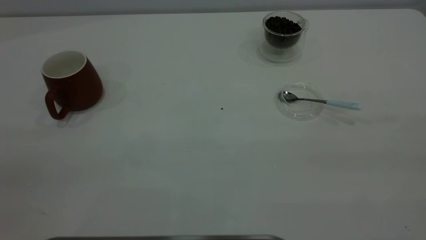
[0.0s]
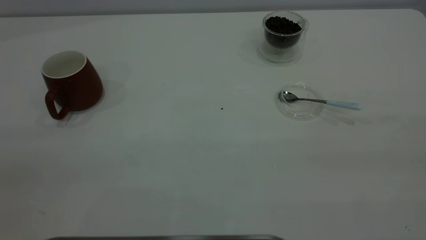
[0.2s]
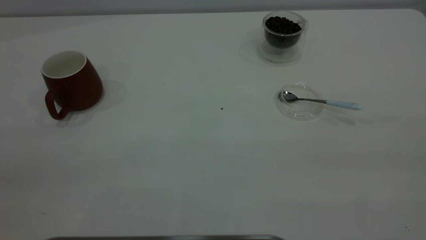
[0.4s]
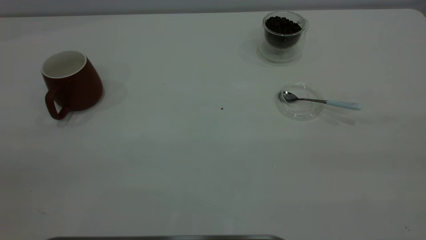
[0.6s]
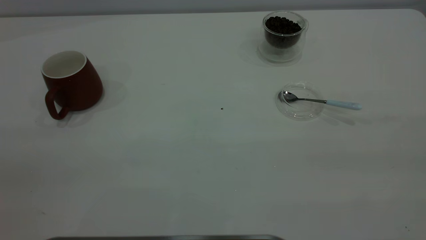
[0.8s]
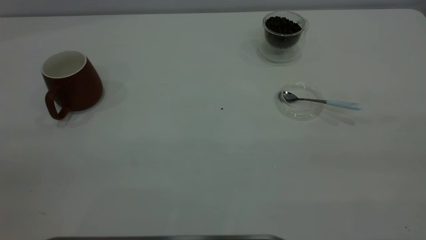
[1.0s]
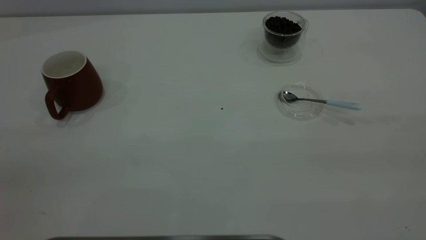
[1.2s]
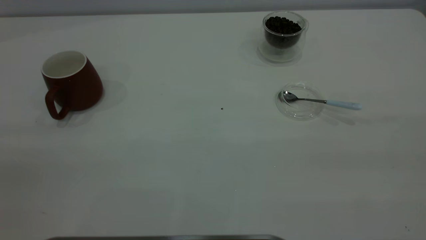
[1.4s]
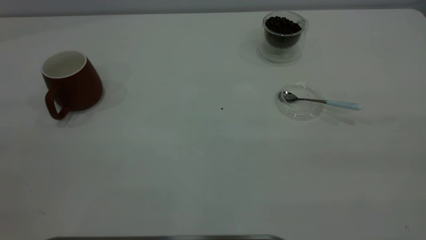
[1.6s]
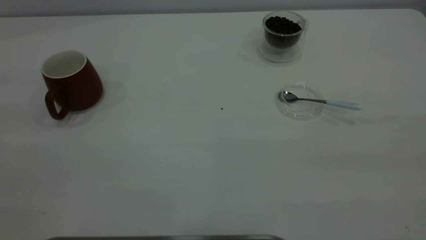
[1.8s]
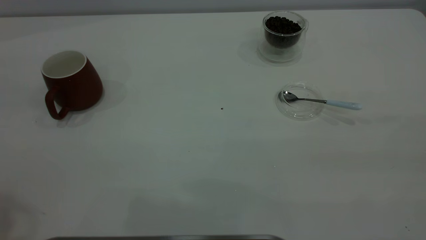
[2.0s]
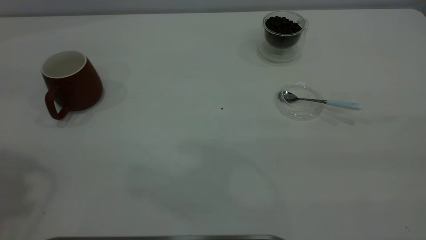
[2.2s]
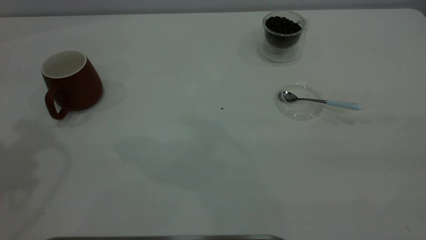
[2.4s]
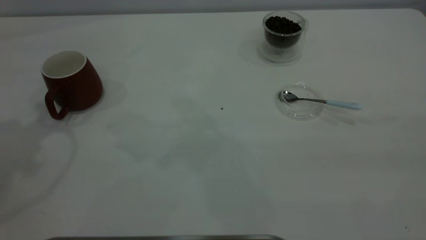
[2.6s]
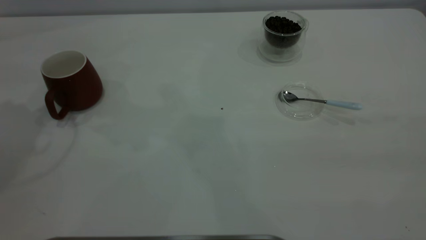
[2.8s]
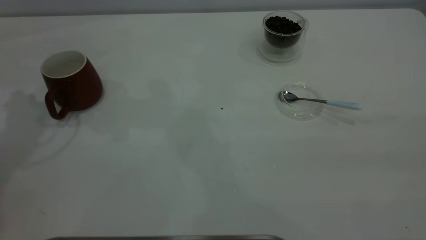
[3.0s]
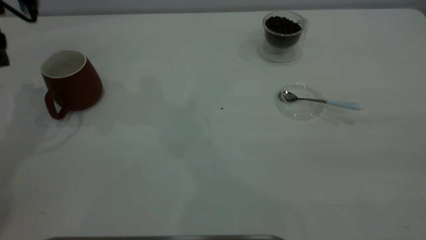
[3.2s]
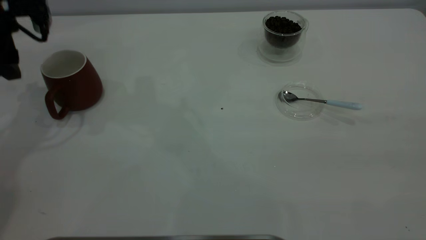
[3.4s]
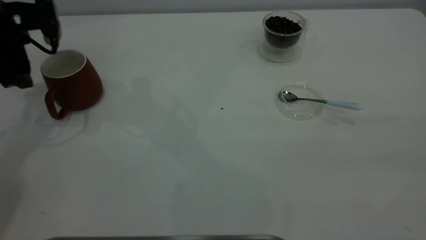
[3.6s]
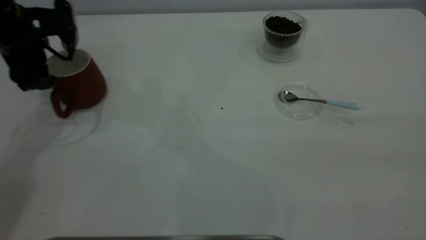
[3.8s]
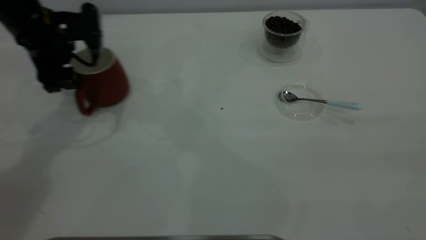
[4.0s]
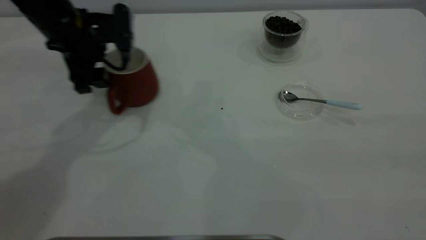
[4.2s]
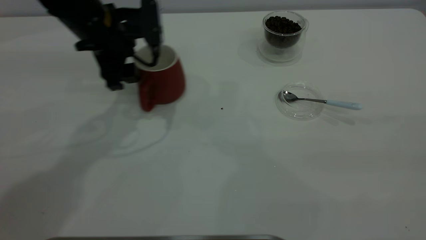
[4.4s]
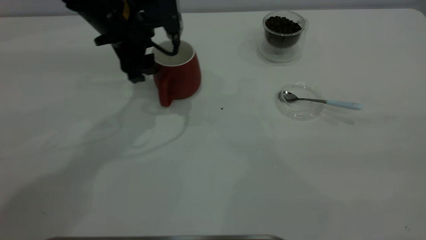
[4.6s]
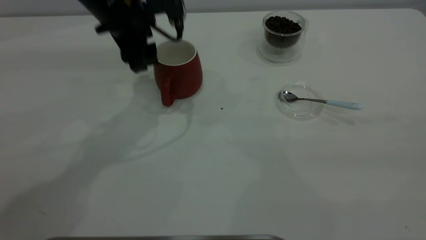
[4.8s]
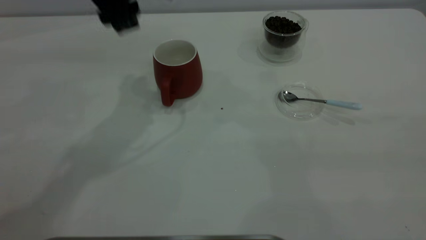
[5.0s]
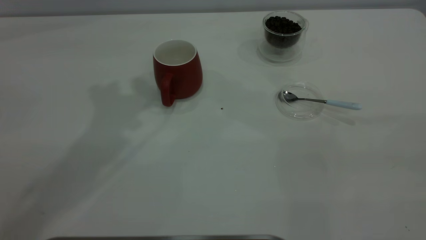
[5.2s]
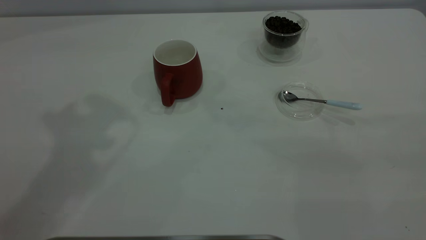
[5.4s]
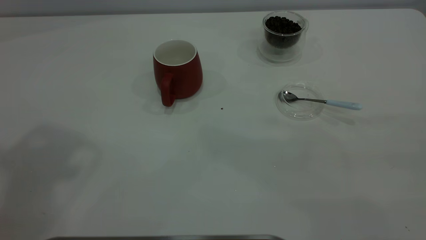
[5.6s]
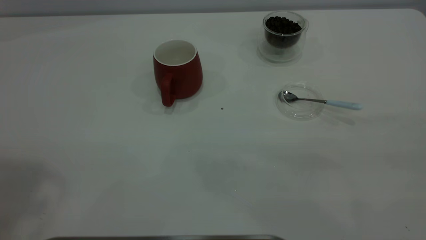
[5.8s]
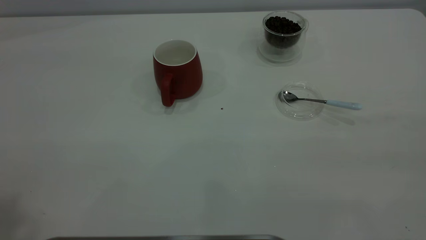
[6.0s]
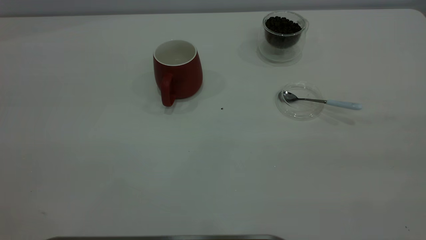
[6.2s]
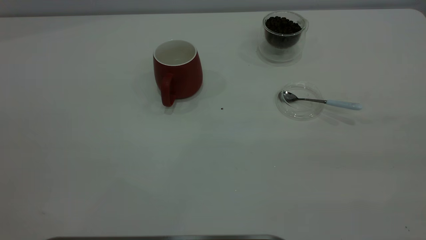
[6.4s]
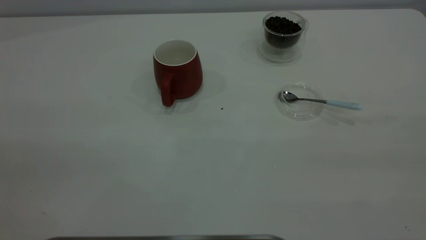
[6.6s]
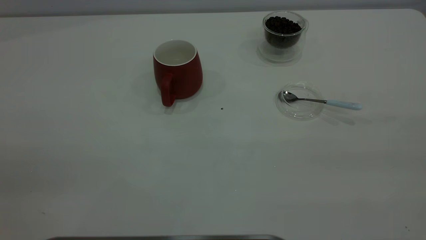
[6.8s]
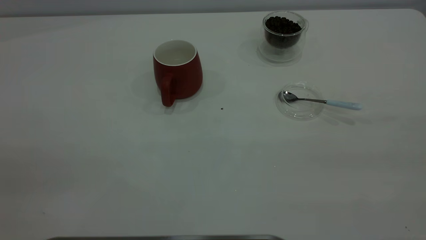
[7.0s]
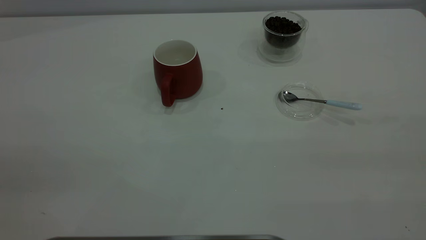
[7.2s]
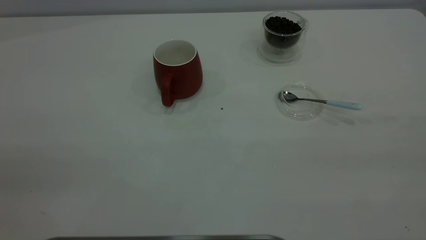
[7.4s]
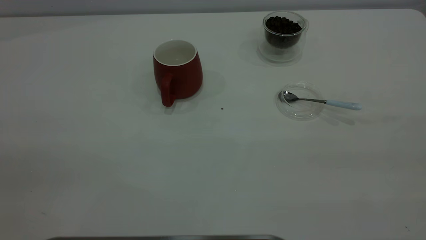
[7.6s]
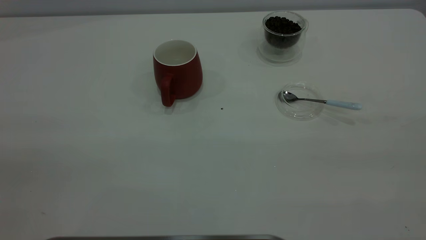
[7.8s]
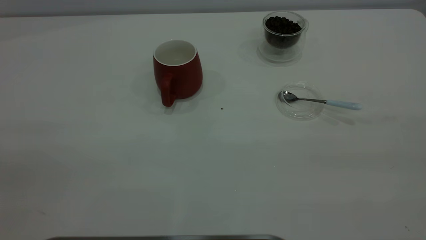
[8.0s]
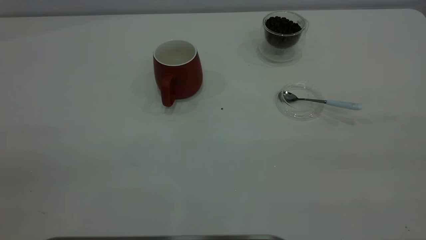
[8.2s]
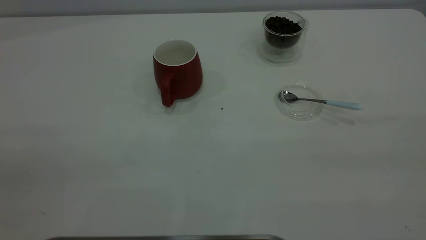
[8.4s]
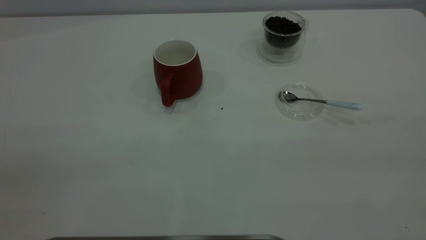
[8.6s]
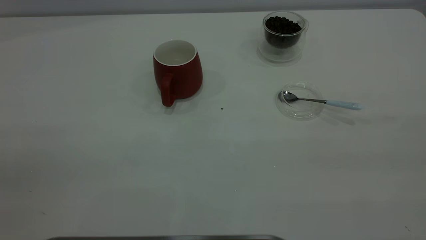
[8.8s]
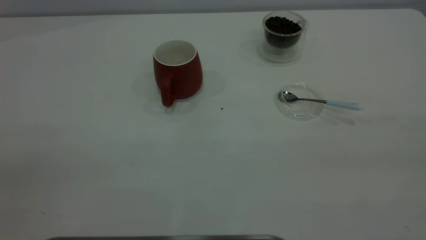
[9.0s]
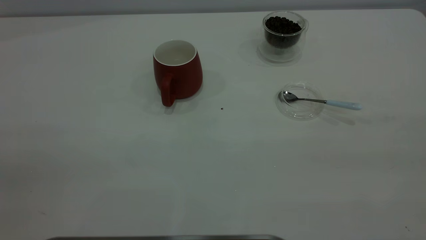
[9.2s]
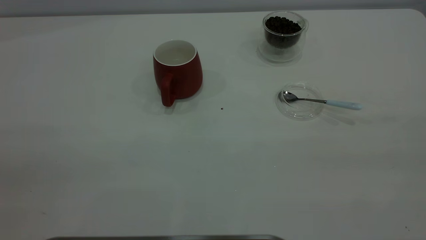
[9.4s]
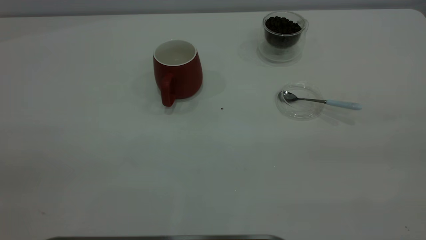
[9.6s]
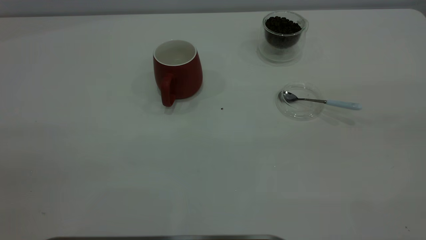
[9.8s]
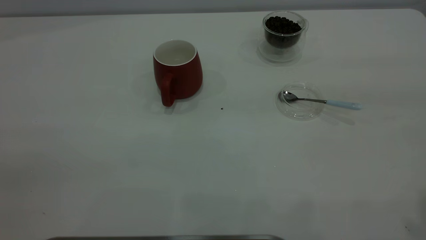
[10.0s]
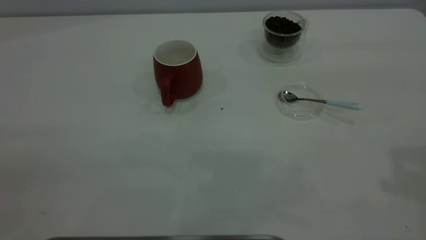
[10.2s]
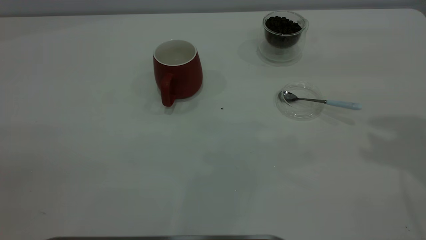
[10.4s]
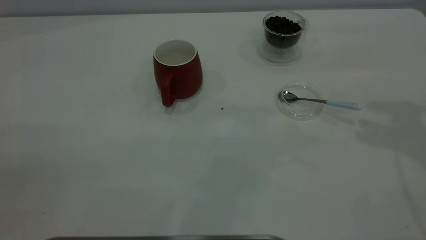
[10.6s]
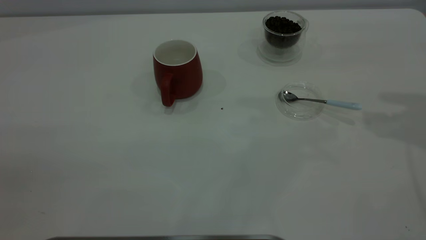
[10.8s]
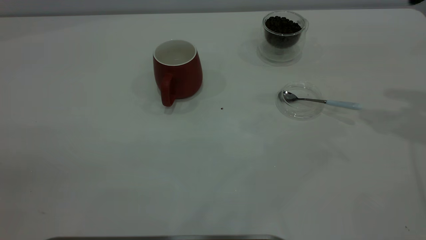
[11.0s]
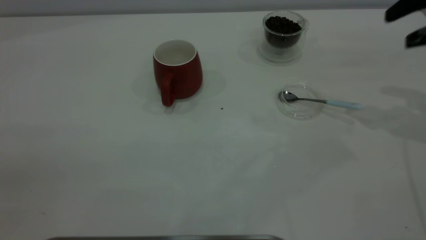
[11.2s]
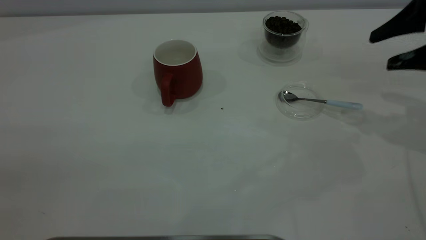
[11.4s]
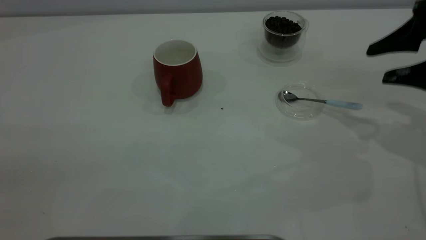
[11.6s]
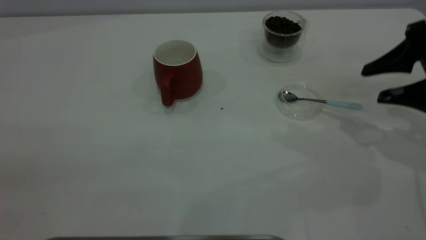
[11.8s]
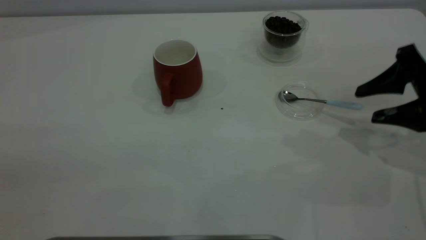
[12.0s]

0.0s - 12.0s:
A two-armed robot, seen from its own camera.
Task of the whole recording: the left gripper place the red cup in the center of the table, the right gripper take the blue spoon from the cup lid and scoop out the coffee beans from the coffee cup and put them into the red cup, the right gripper put the spoon back into the cup lid.
Step, 0.0s - 4.8s: Move the cup to the center of view.
3.0s - 4.4s: The left gripper shifts some 20 cm to the right and downward.
4.4s - 6.0s: The left gripper moves upward and backward, some 50 cm.
10.4s - 12.0s: The right gripper is displaced downward by roughly 25 cm.

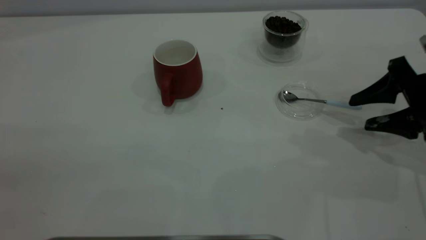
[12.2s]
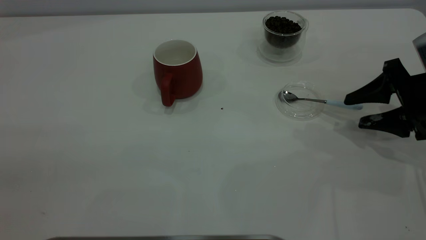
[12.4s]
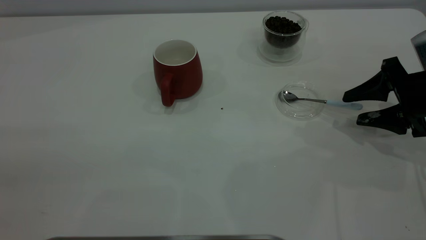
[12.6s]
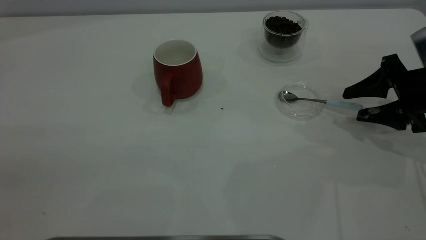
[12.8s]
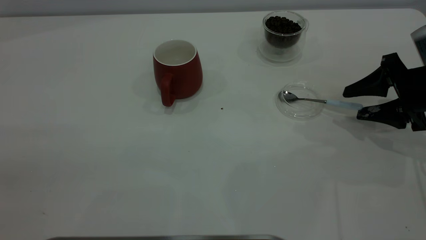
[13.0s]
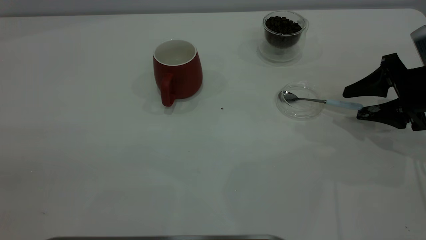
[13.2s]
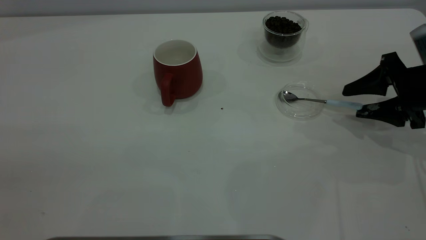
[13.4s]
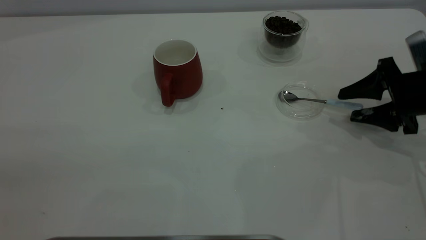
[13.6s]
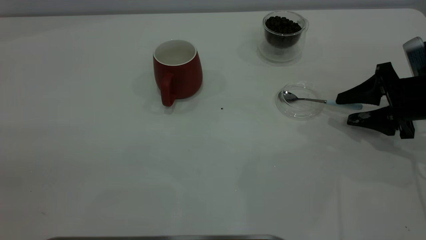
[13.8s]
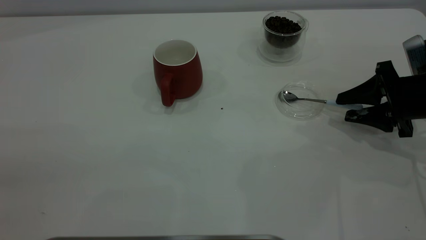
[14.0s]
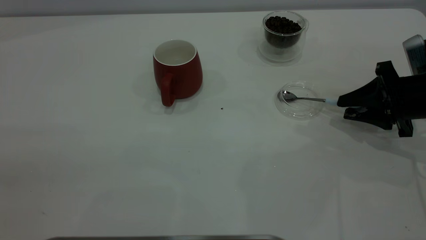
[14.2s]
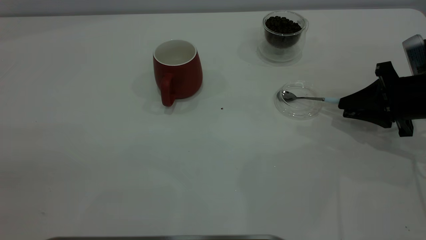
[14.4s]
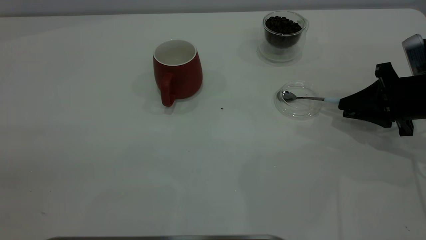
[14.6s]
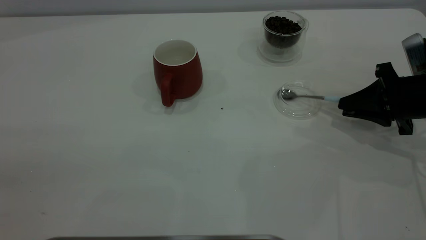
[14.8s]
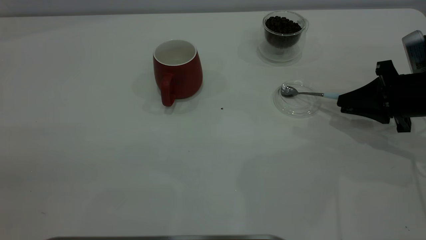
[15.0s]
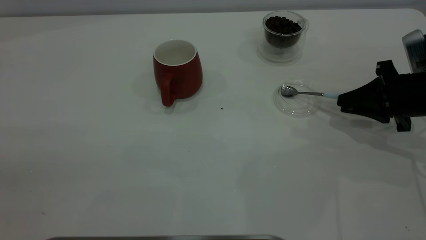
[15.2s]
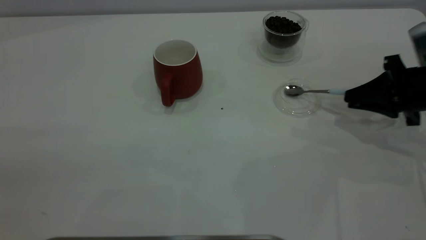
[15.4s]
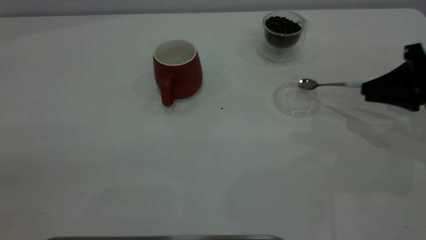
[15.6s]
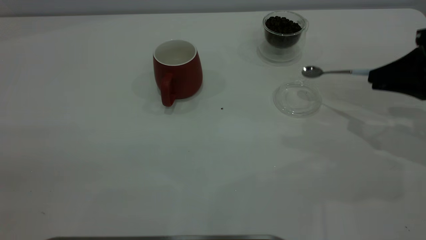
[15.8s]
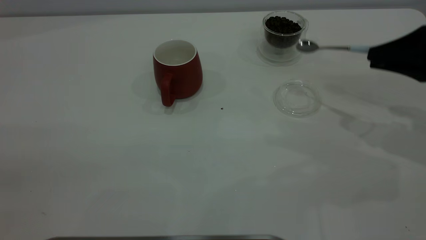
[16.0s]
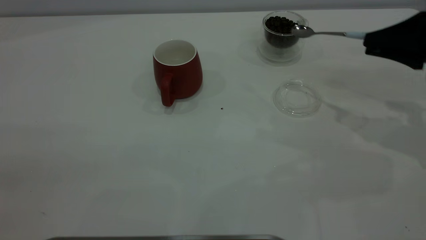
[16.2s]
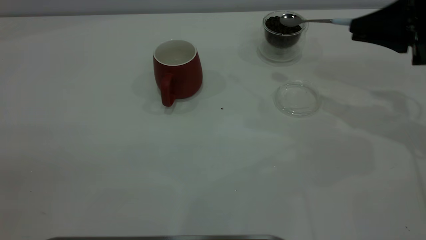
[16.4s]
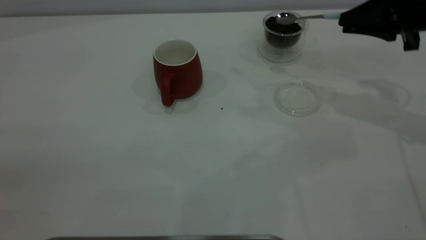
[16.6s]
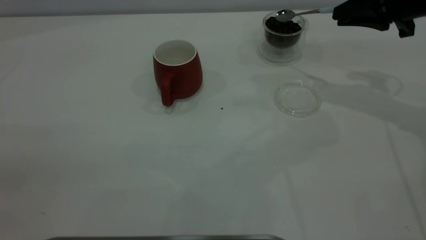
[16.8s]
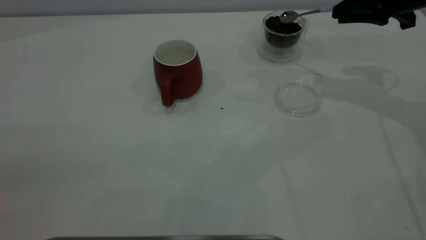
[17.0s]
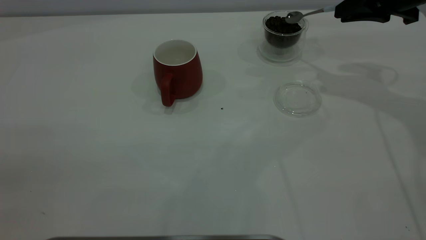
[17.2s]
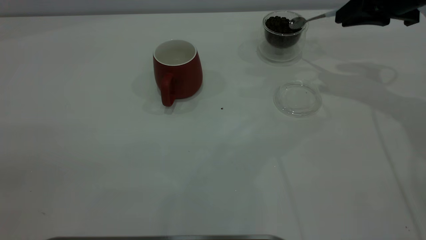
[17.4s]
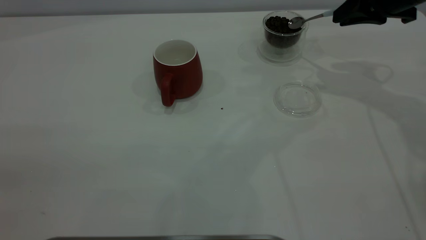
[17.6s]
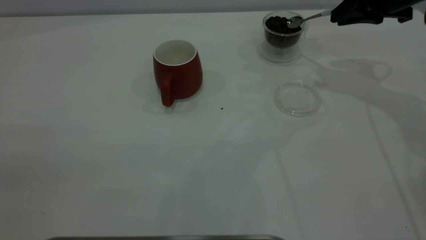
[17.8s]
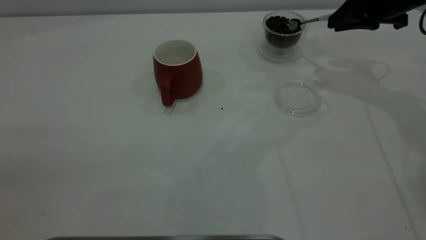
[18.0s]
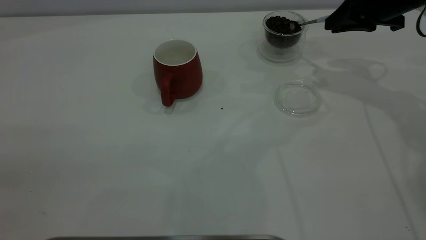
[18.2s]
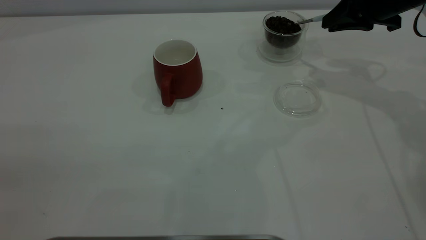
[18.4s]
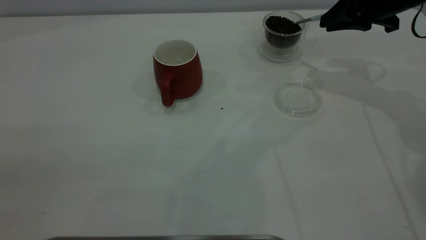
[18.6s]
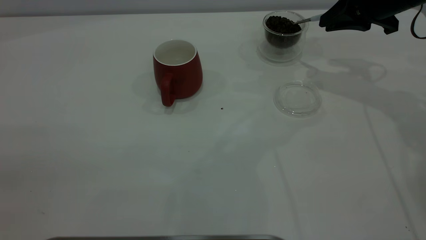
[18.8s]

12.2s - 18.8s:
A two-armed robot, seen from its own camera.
Task of the whole recording: the left gripper place the red cup in the center of the table, the right gripper take the blue spoon from the cup lid and scoop out the coffee beans from the coffee cup and put them into the red cup, the right gripper put the spoon back into the cup lid.
Step, 12.2s - 15.6s: Pick up the spoon.
12.2s - 13.8s: The grippers make only small movements.
13.8s - 15.4s: The right gripper closes its fingers.
15.4s - 17.2s: The right gripper heads upward and forward, covering some 15 cm.
17.2s - 18.8s: There are only small adjustments of the grippers.
